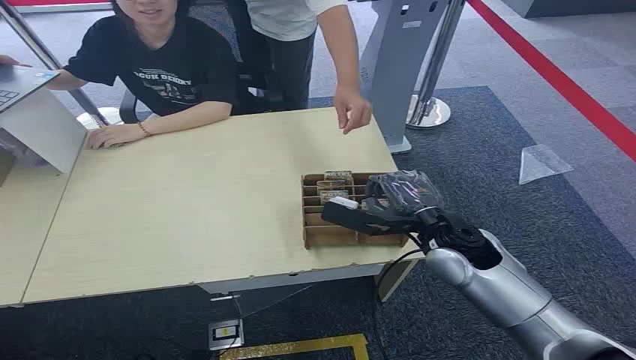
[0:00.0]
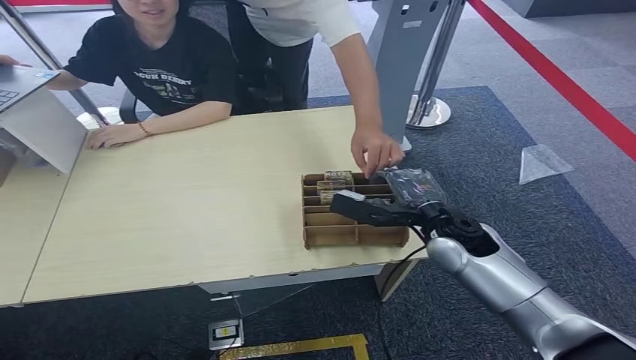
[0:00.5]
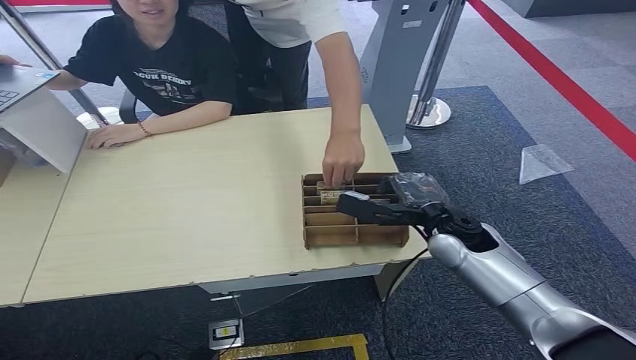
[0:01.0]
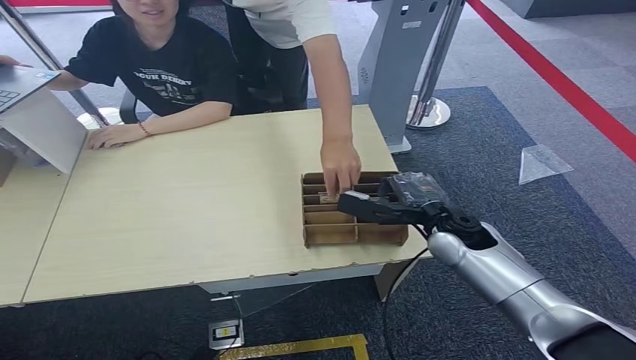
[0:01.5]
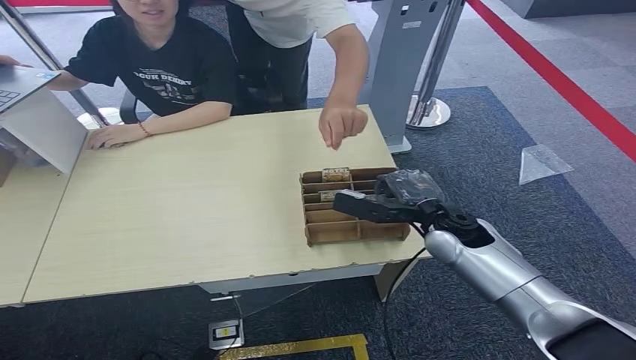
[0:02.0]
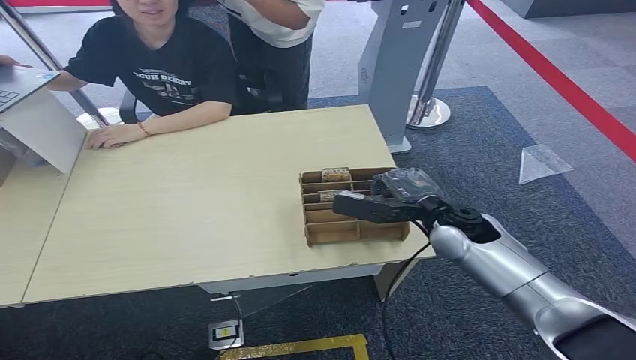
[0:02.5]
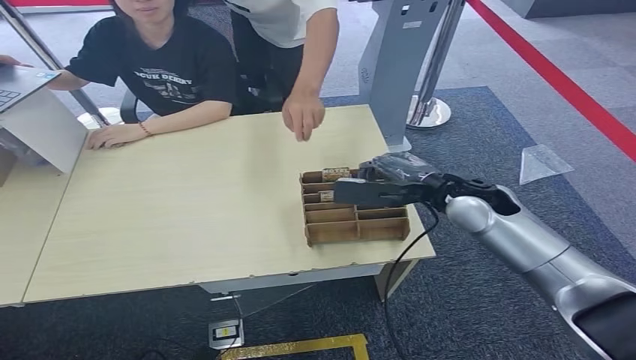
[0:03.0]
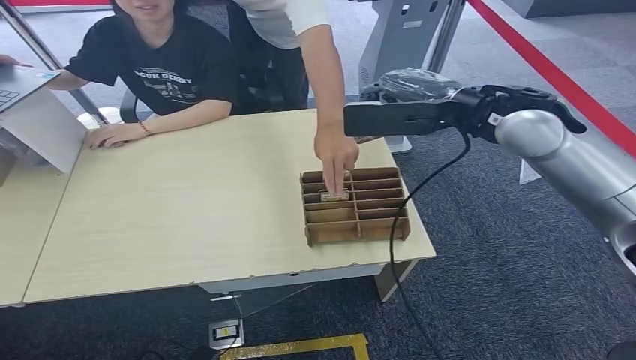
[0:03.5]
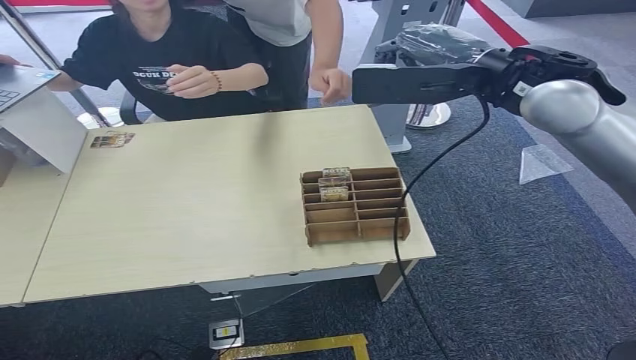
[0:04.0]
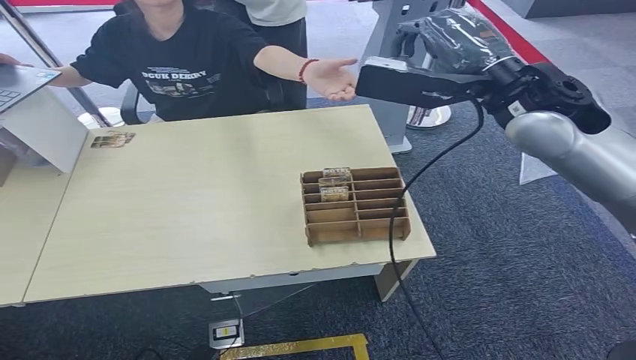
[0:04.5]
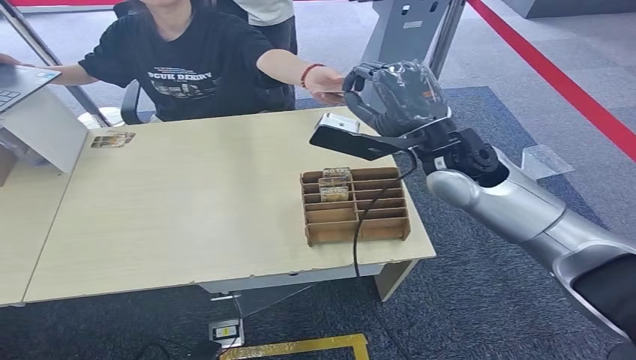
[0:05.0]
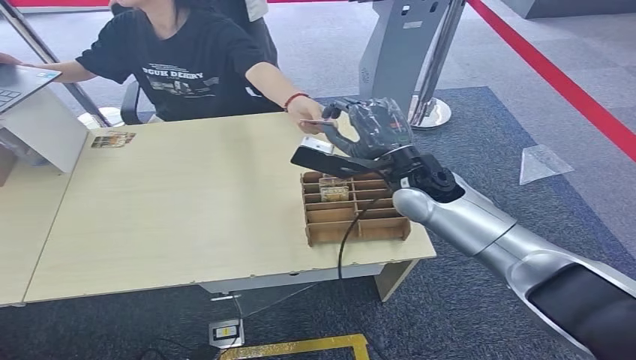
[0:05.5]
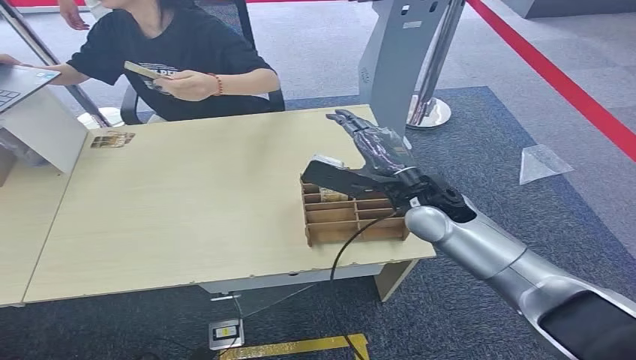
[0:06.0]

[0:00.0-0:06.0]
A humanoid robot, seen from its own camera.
Step, 0:00.0 to 0:02.5: Pick up the key card from the card box.
Step, 0:03.5 to 0:06.0: Hand the key card to the target.

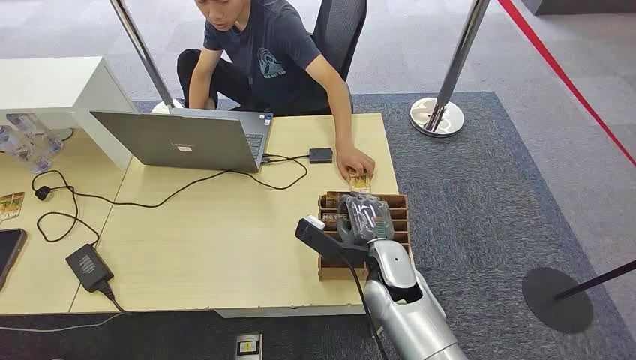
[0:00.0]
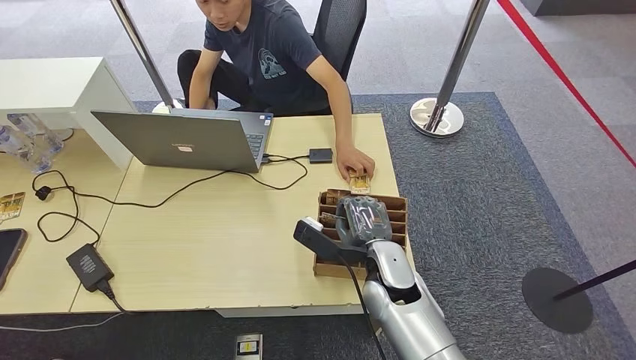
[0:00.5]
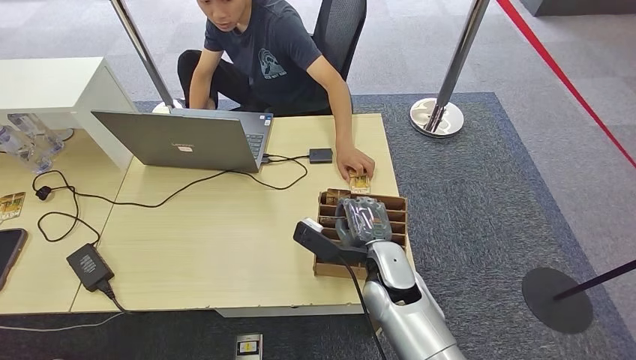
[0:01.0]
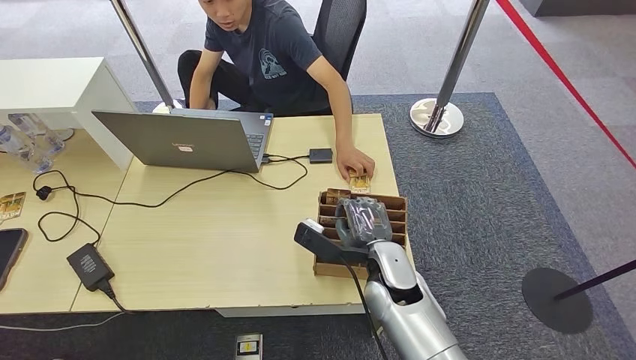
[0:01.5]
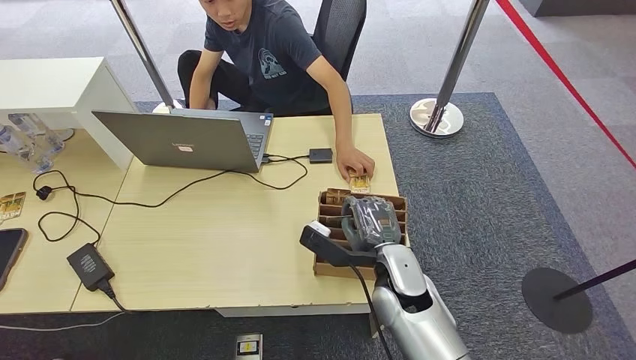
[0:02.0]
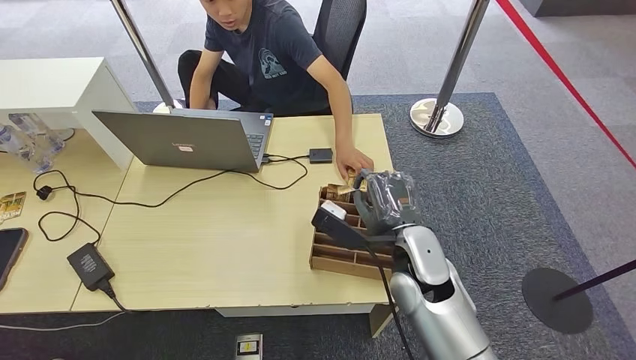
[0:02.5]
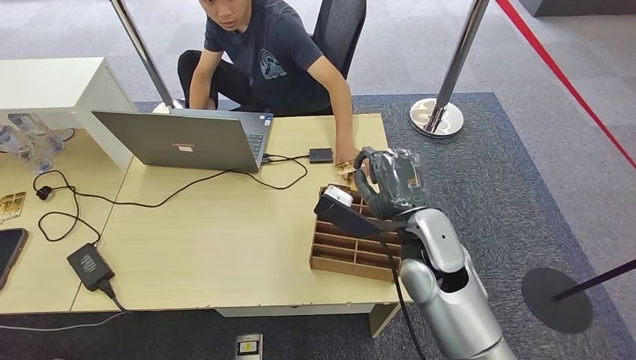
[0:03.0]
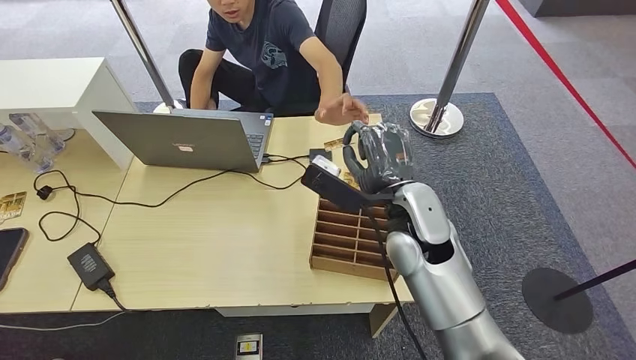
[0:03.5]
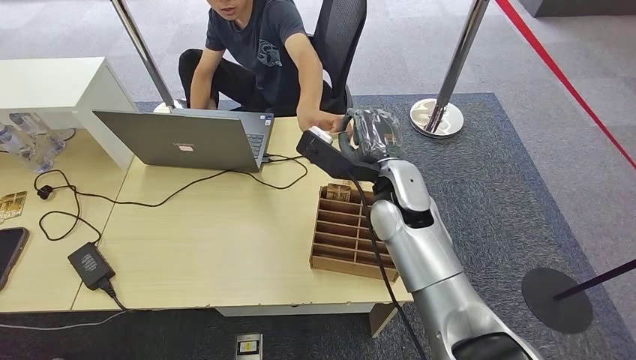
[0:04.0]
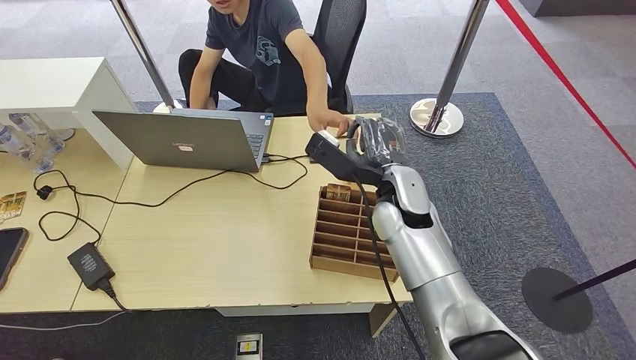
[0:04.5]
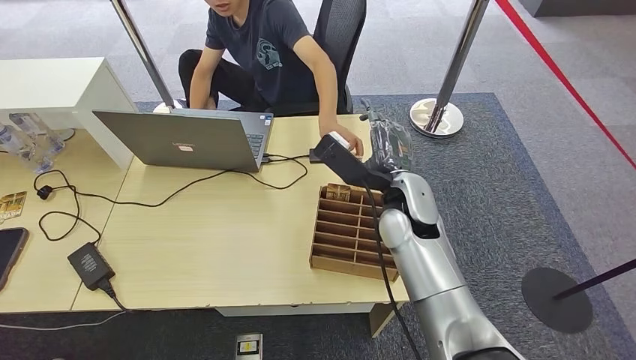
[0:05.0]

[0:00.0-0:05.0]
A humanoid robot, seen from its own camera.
Step, 0:00.0 to 0:02.0: Pick up the key card from the card box.
Step, 0:02.5 to 0:05.0: Hand the key card to the target.
0:02.5 to 0:05.0: The right hand heads forward and upward, covering roughly 10 cm.
